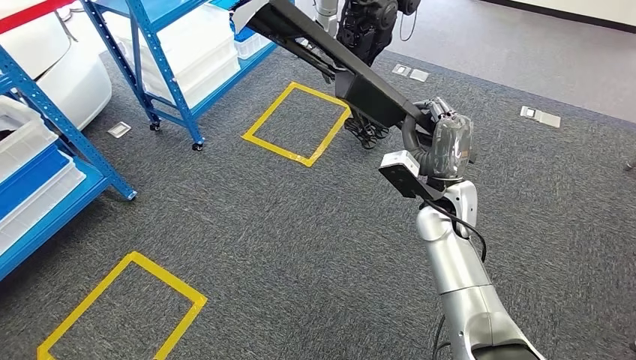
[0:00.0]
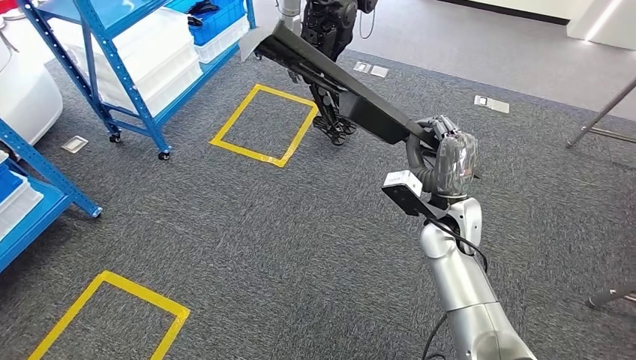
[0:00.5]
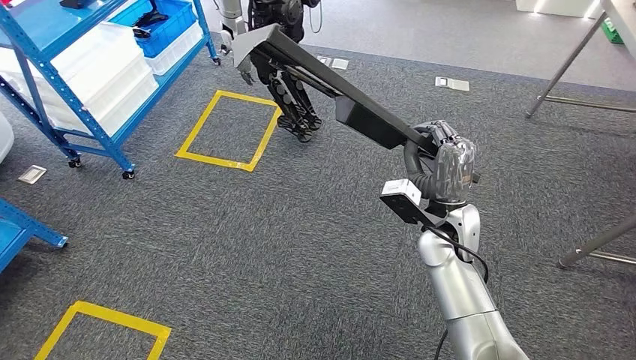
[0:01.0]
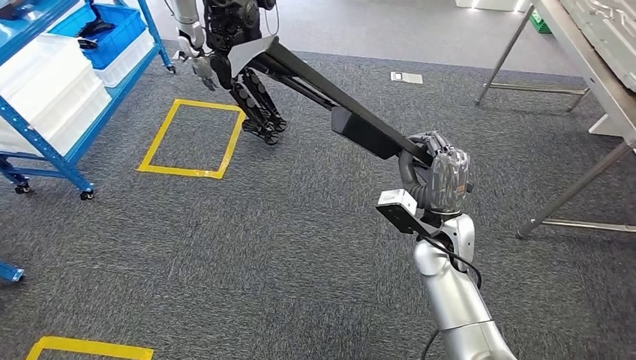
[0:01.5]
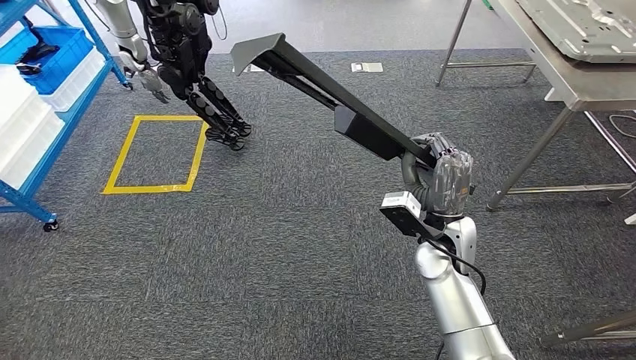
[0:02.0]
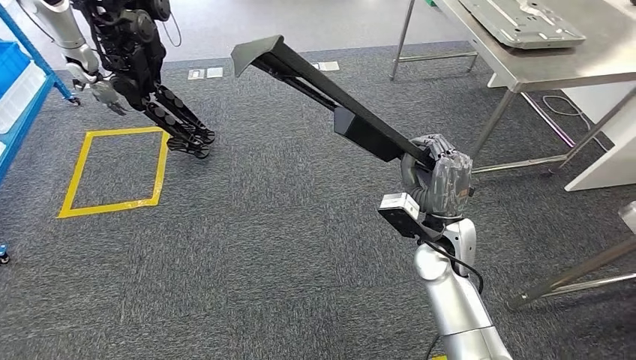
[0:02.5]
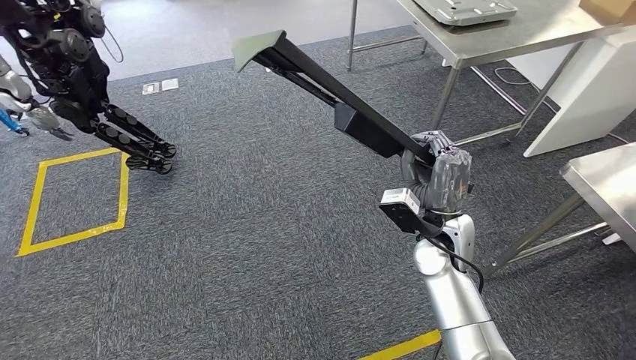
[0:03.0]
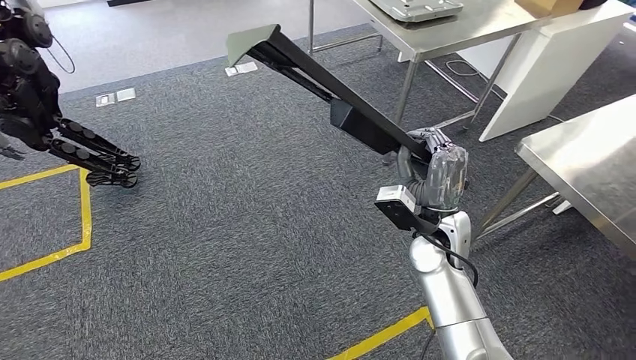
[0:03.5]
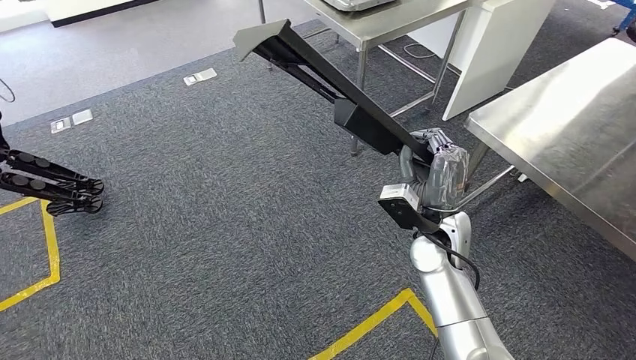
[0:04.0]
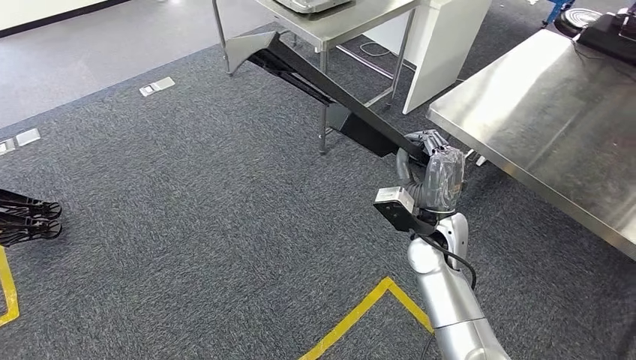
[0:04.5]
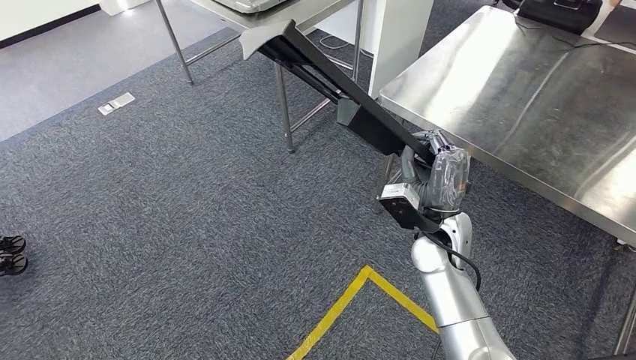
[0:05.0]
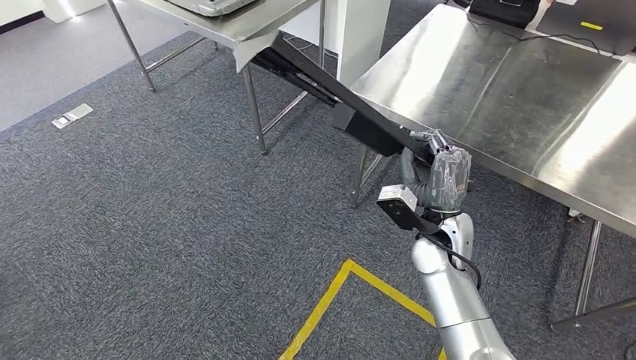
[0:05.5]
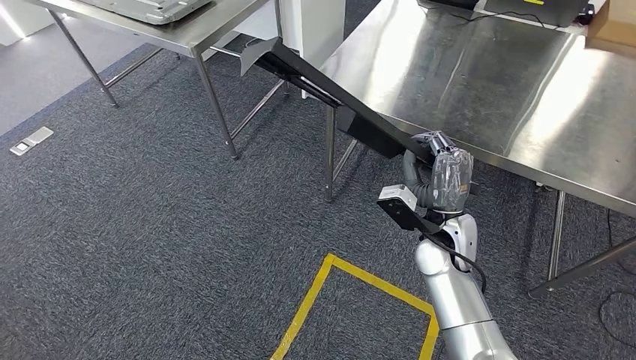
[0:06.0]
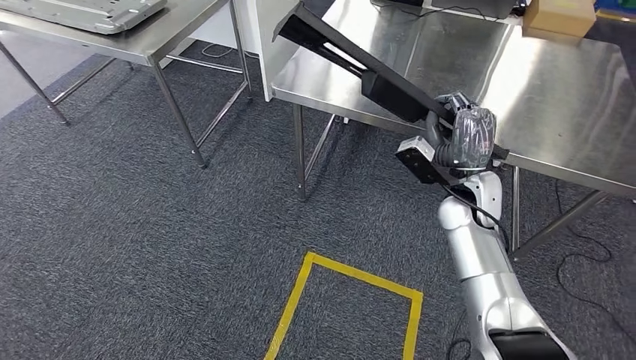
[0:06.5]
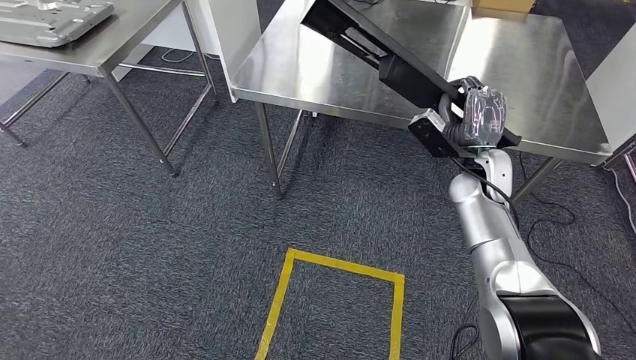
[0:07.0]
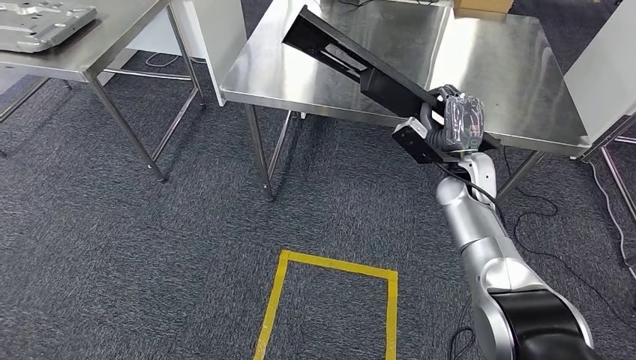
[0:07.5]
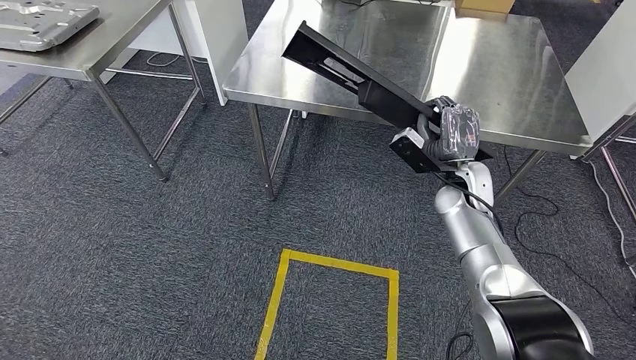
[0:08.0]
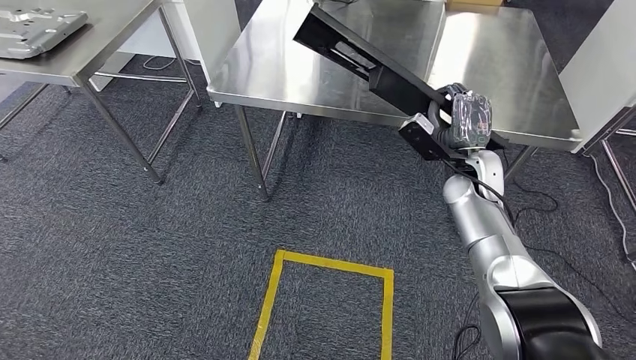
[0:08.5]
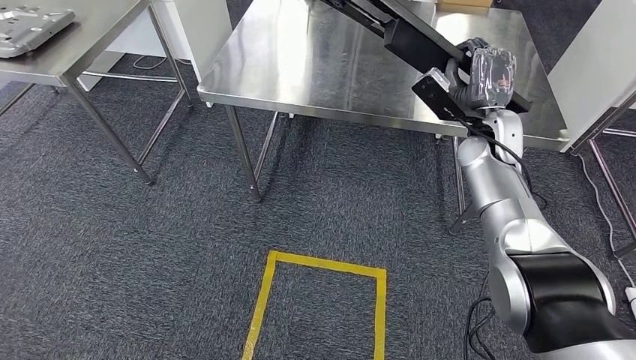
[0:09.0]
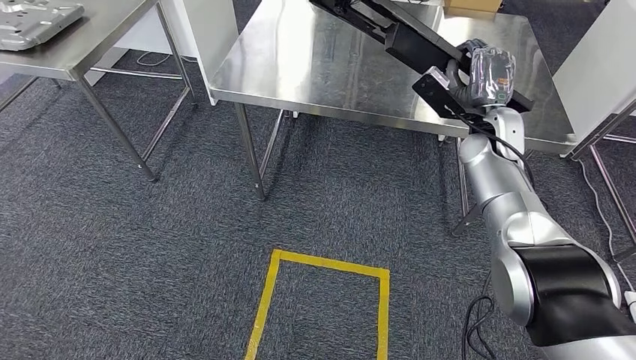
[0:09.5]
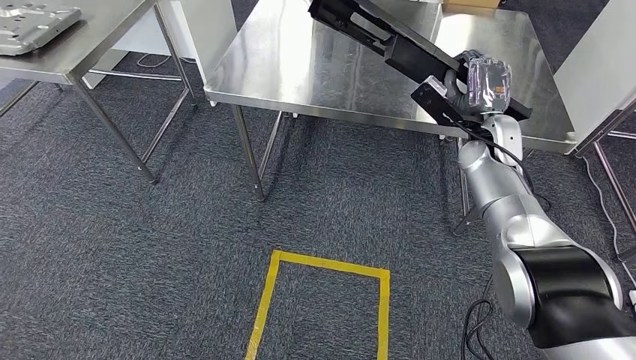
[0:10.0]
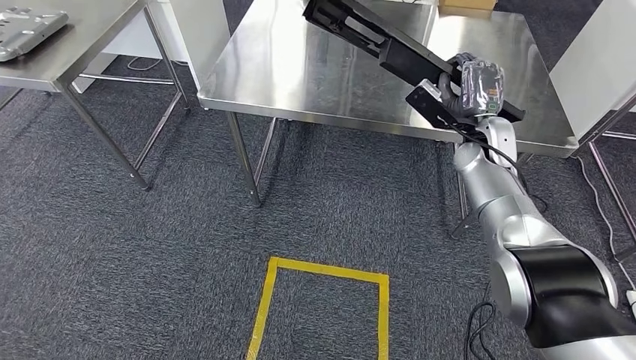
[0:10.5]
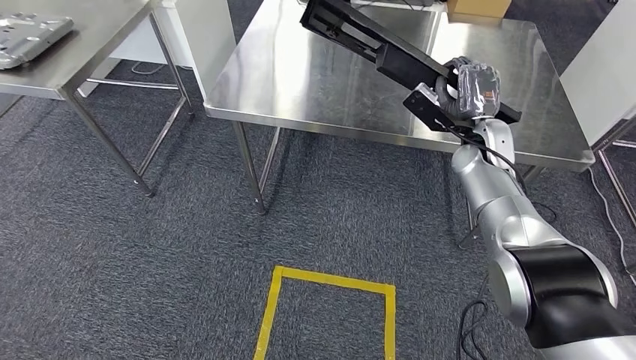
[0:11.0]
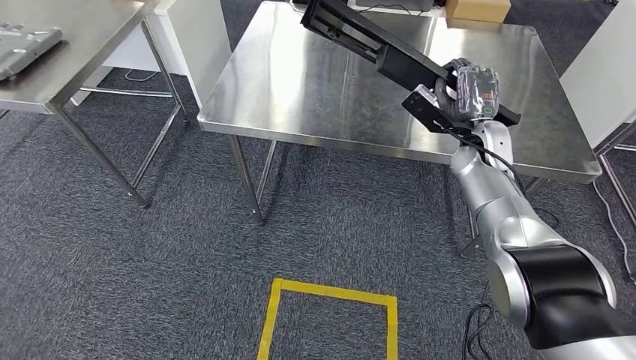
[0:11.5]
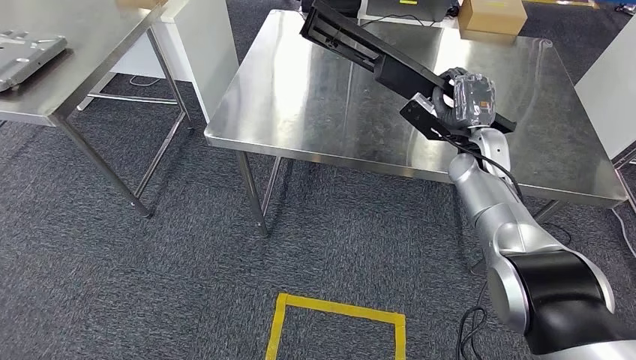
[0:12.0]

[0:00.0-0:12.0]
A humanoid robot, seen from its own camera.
Step, 0:00.0 to 0:06.5: Move the large material to the workbench.

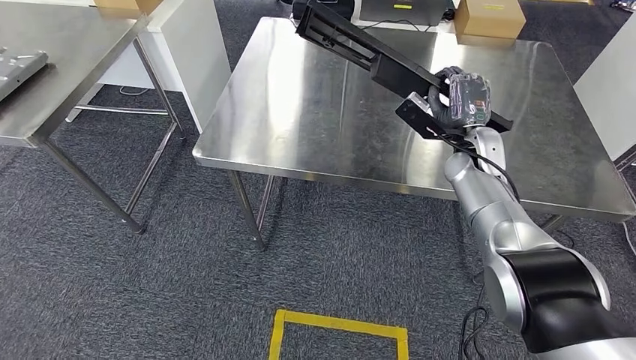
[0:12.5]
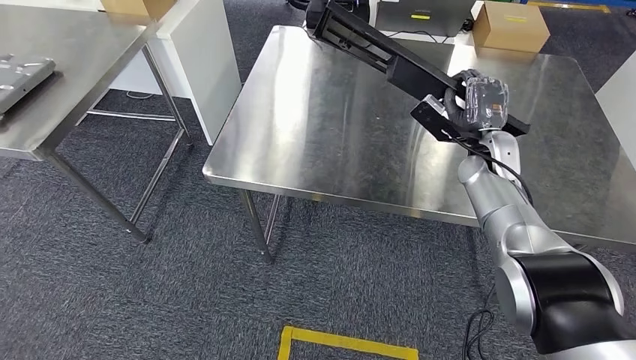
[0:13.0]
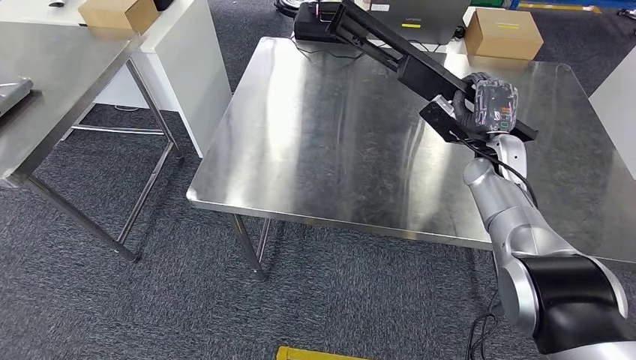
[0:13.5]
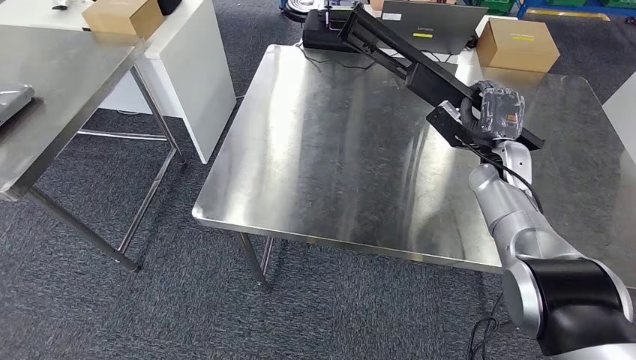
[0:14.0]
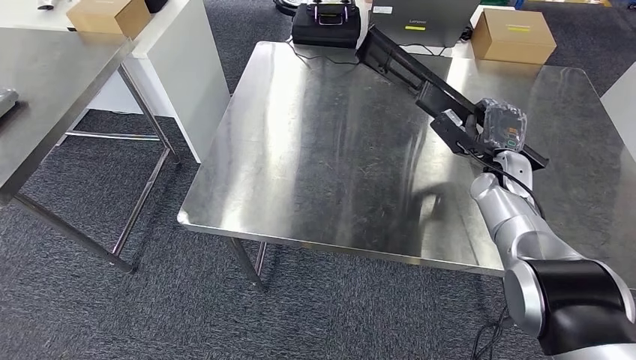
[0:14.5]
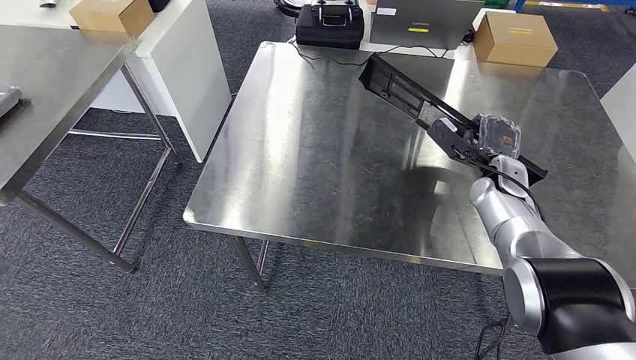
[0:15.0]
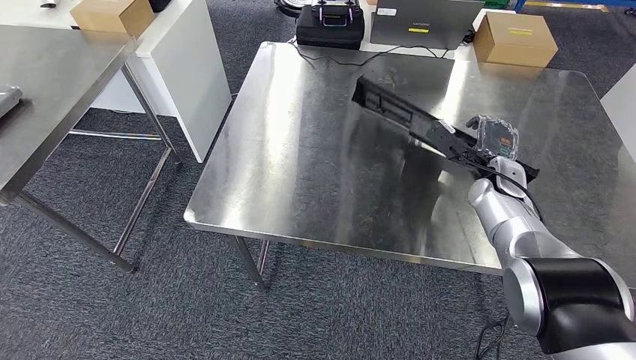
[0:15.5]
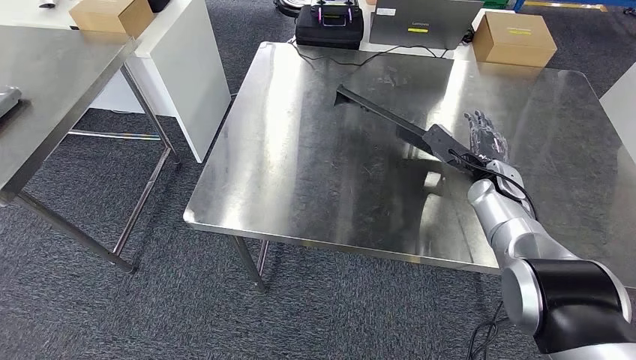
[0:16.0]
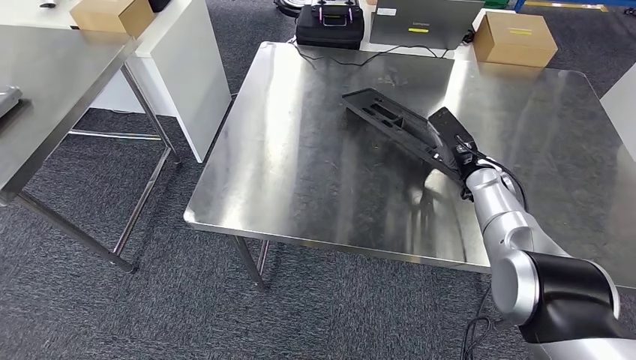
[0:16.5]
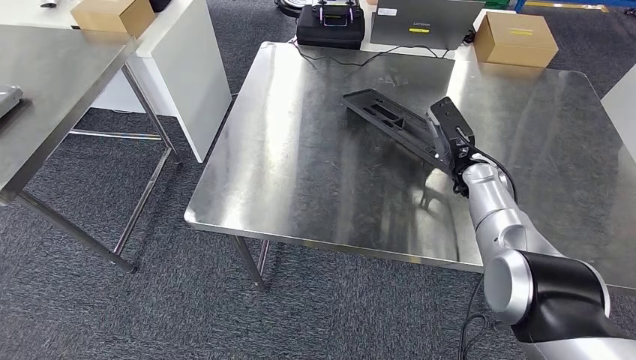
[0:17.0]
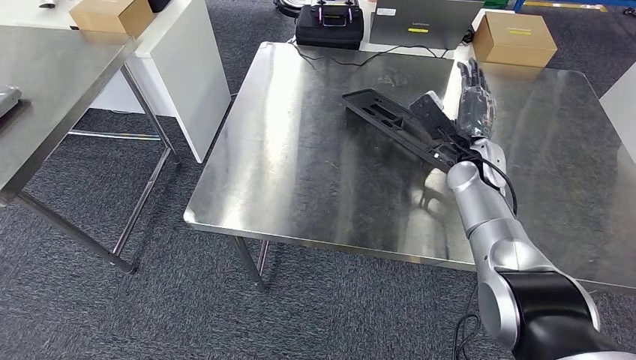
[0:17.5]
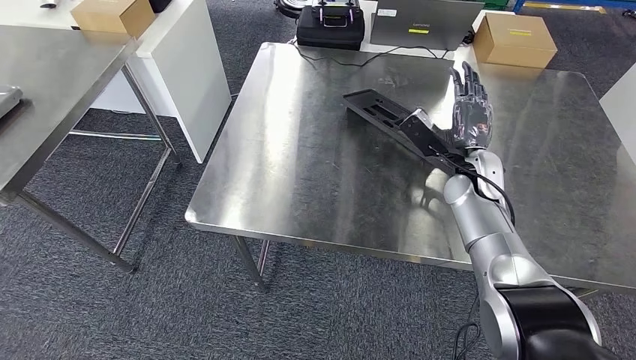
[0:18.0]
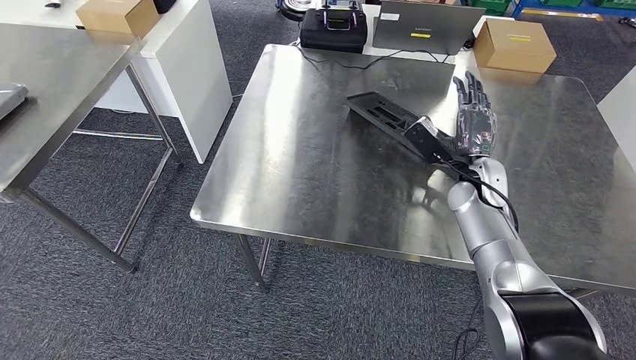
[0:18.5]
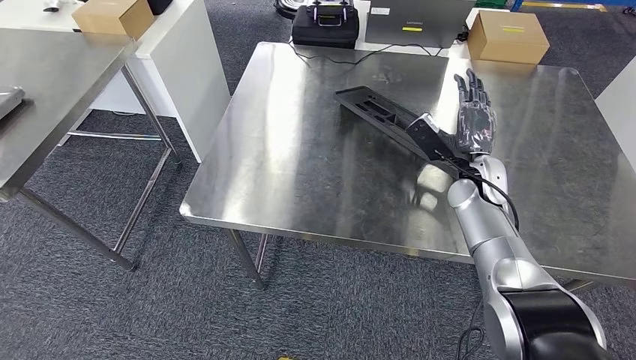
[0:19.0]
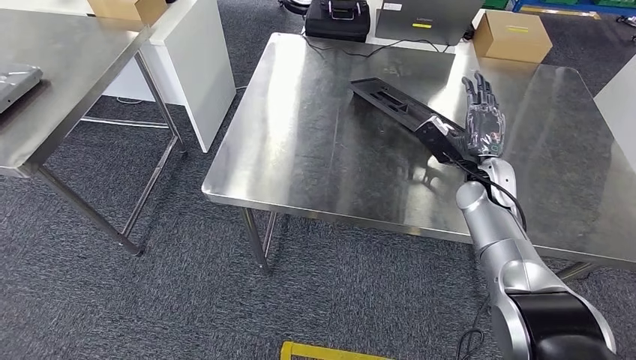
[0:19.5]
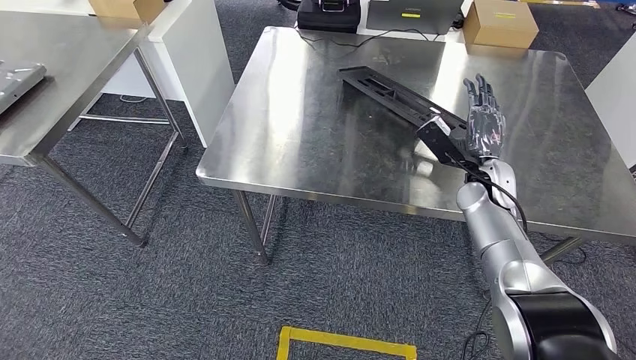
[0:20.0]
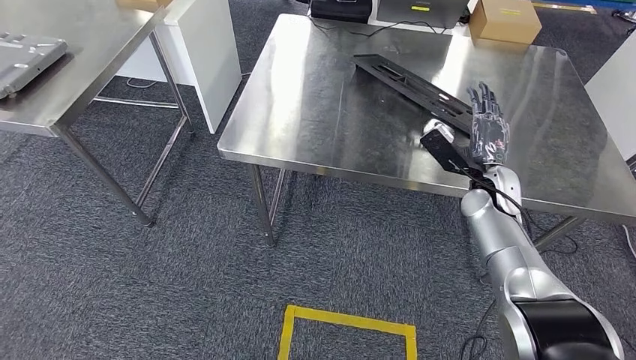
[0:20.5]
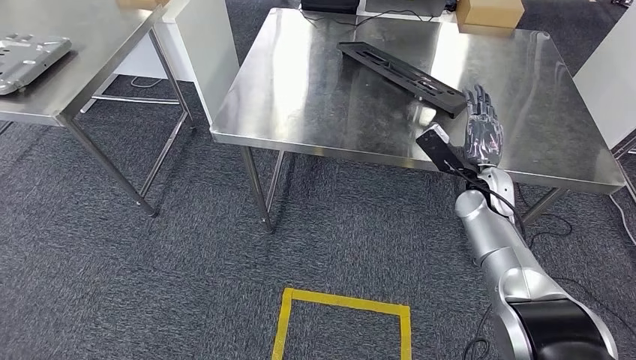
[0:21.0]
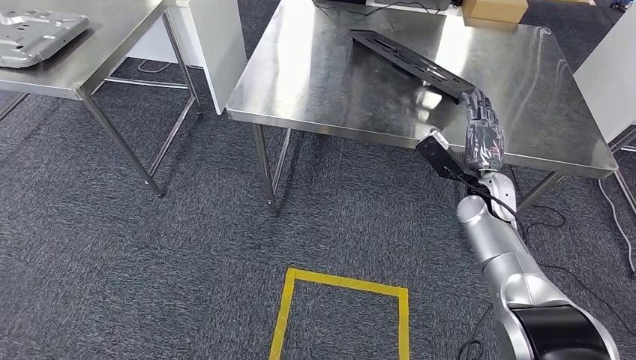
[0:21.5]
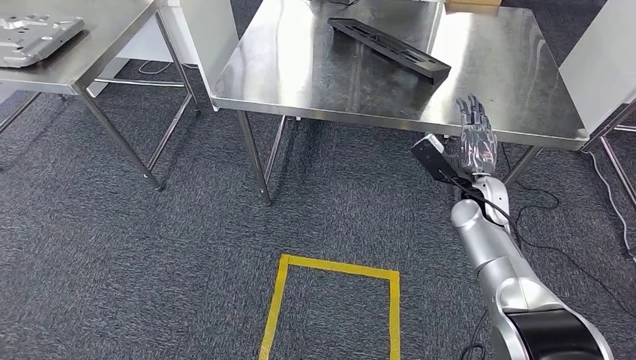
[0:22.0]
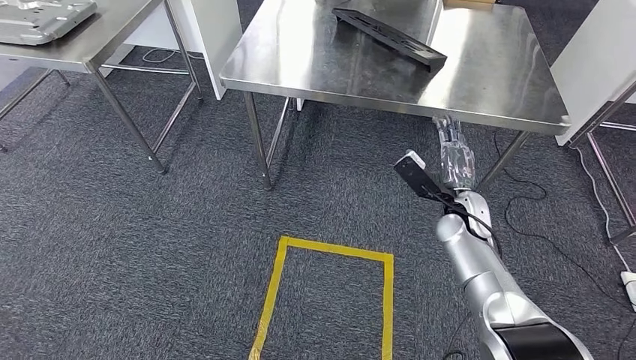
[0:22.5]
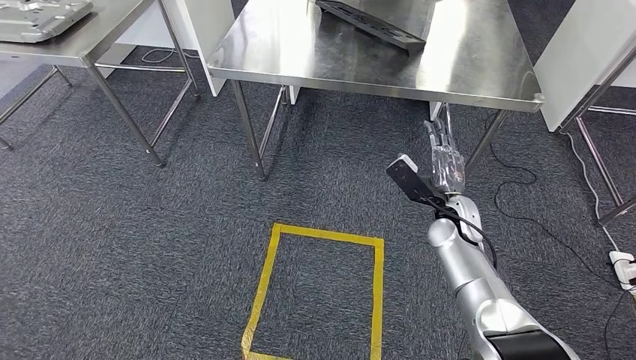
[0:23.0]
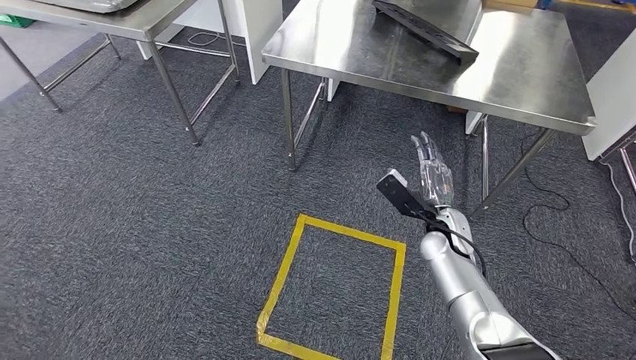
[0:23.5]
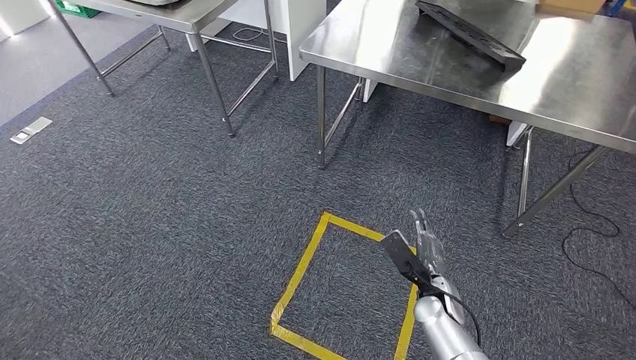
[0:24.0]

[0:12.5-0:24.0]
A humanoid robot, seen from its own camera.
Step, 0:12.5 to 0:22.0: Insert the large material into the corresponding slot on the workbench.
0:16.5 to 0:18.5: The right hand ends up about 5 cm from where it was.
